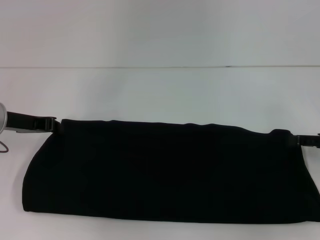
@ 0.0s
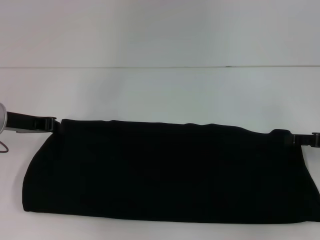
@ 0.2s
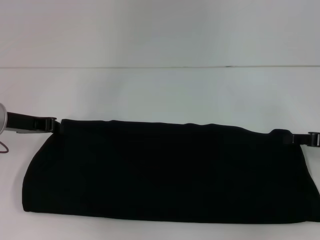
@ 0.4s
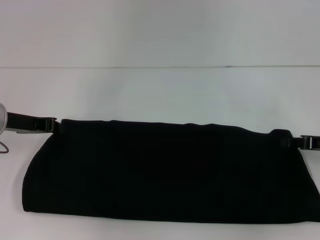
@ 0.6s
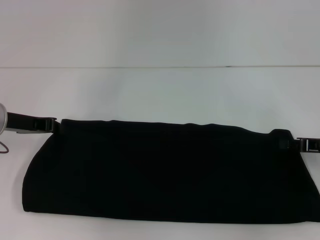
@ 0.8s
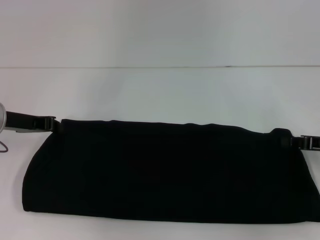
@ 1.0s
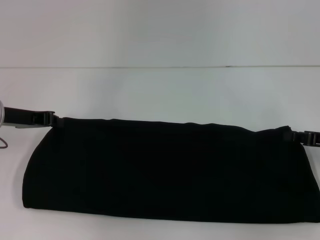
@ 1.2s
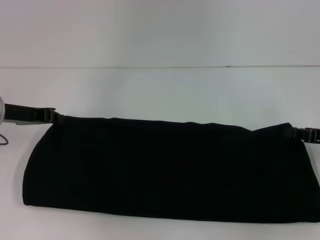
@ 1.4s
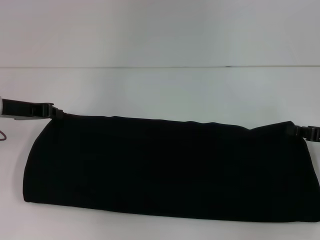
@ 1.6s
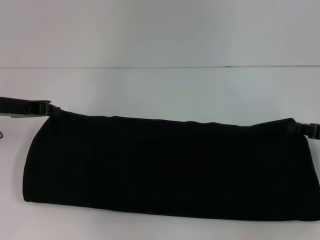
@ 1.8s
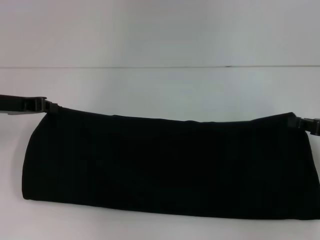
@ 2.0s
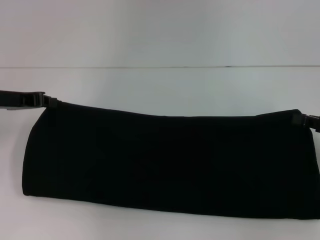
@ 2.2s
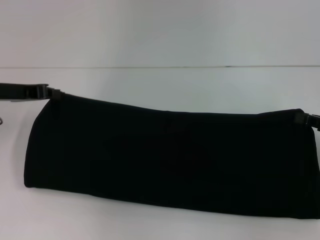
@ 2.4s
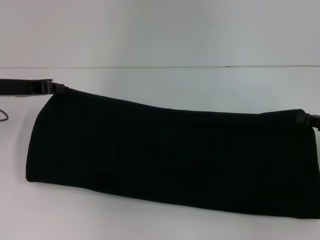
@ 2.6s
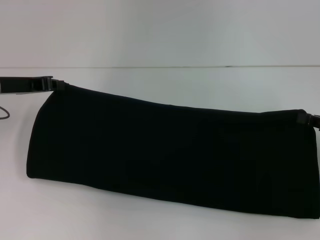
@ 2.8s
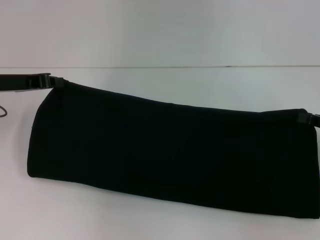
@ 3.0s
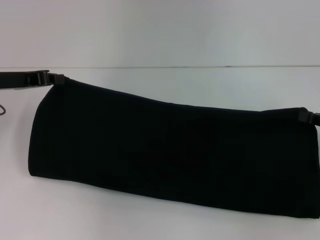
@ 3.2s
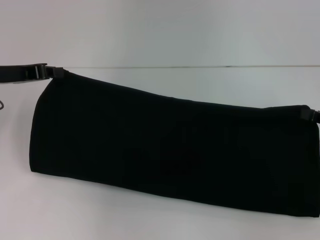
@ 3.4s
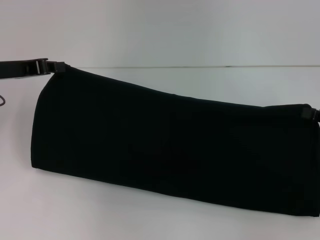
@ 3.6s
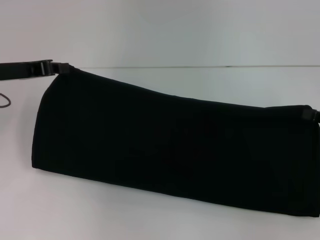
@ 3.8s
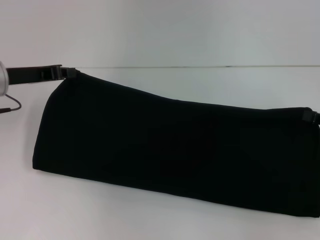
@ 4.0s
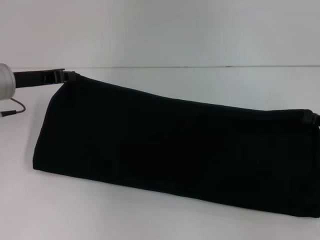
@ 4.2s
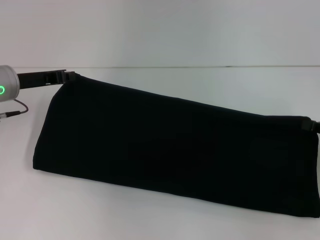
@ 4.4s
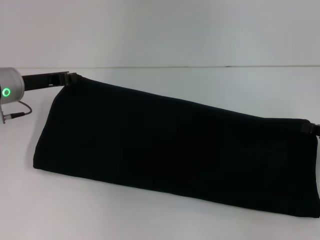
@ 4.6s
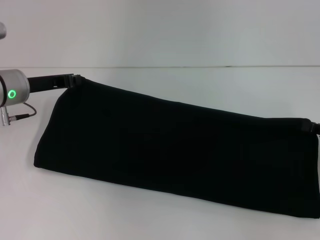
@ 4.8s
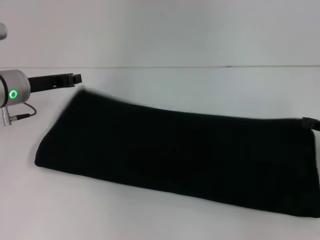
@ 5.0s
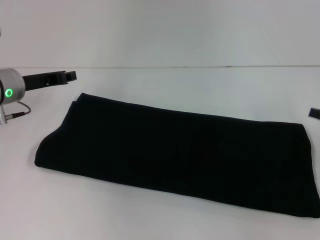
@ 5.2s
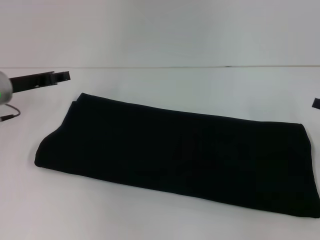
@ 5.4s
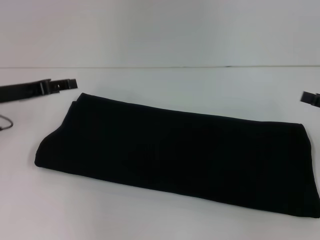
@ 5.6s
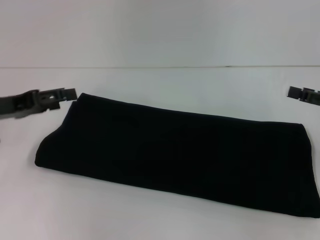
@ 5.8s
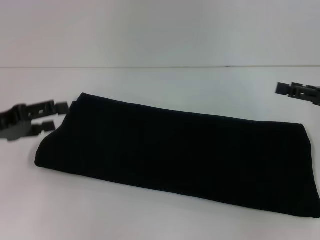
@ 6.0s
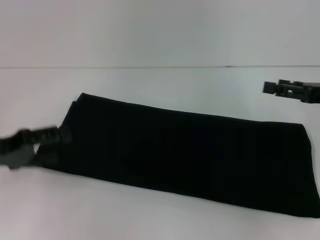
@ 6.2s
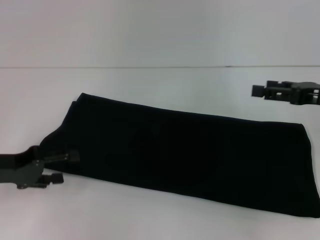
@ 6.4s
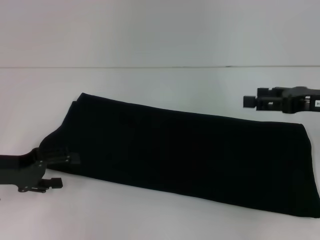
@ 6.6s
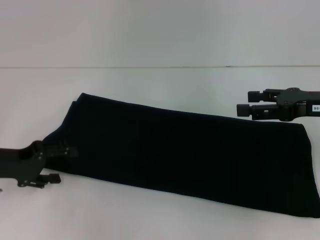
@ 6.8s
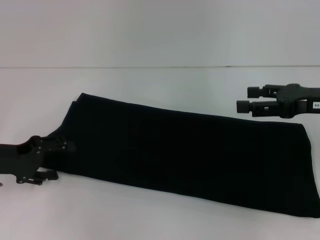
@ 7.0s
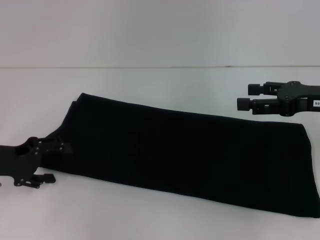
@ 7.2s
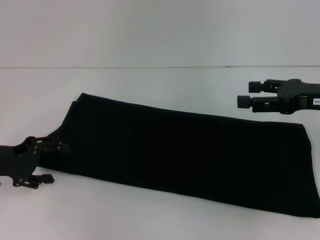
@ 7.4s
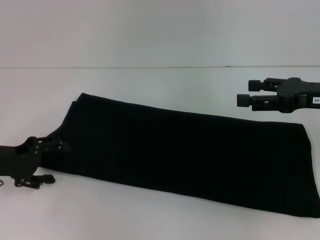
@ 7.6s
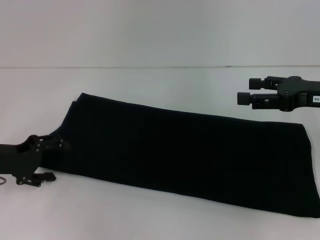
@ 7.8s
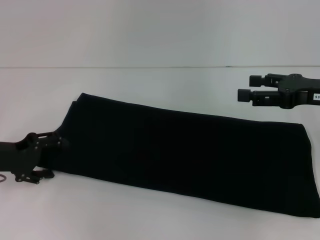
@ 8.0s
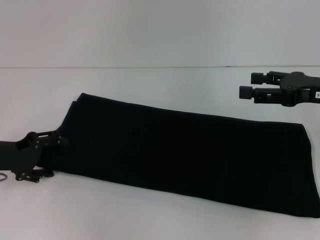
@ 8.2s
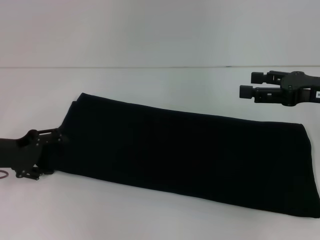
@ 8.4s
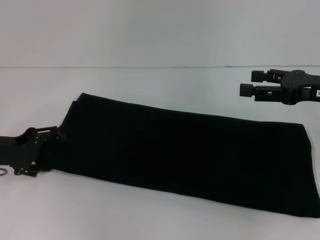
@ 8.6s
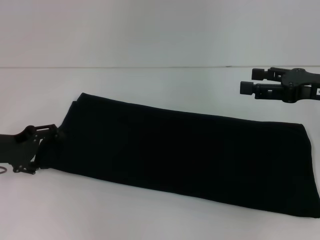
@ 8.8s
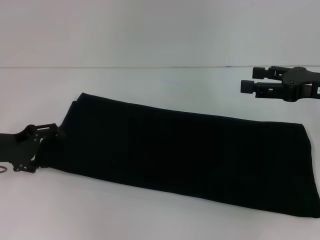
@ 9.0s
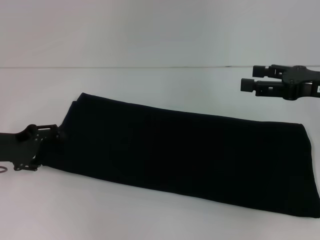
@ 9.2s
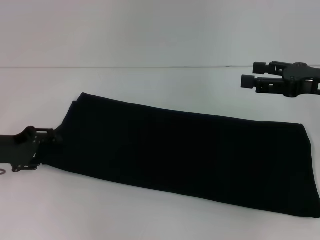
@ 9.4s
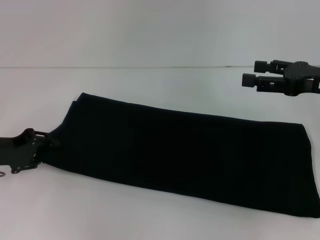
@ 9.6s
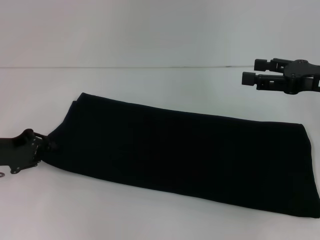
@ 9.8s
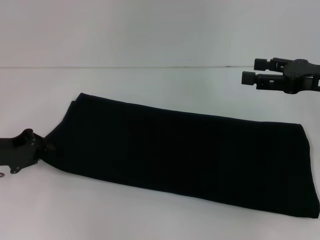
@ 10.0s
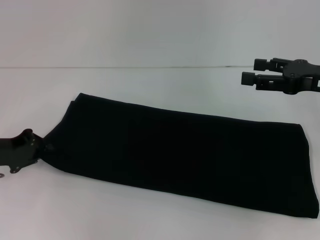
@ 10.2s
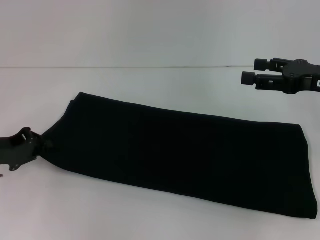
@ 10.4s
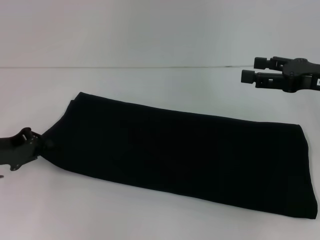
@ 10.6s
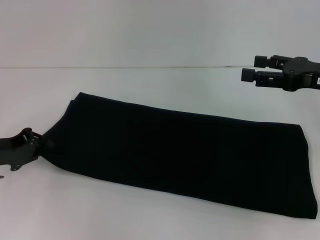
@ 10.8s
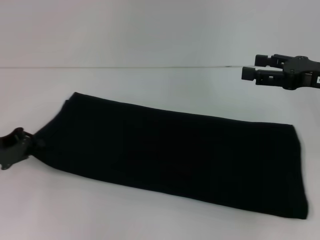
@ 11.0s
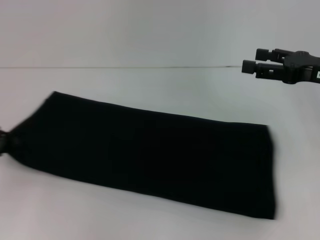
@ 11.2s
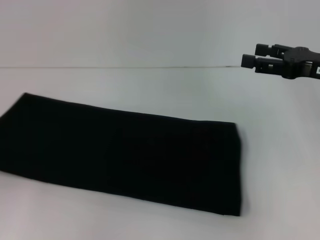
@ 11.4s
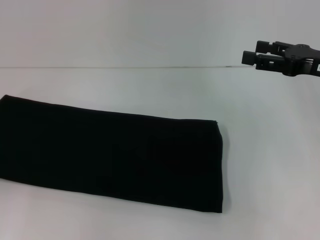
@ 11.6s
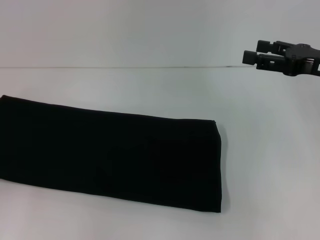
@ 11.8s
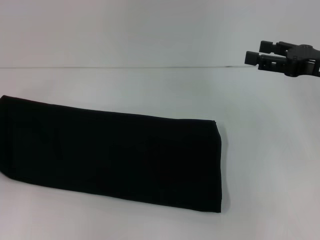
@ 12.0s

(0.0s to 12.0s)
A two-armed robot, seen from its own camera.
Step, 0.0s - 5.0s: Fold the clothes with your right hand.
0.0s - 1.6s: The right gripper closes.
1.6s - 4.4s: The grippers move only a little.
4.4s - 6.0s: The left gripper travels backward and to the left by roughly 10 cm, and opens up. Meanwhile the right gripper changes place by approximately 5 cm, and opens.
6.0s - 7.6s: The right gripper ends up some 5 cm from where it was.
7.6s - 9.0s: The grippers stay close to where they were, moving slightly.
9.0s - 10.4s: The left gripper closes its fingers.
10.4s - 12.0s: The left gripper goes approximately 10 cm to the left and upward.

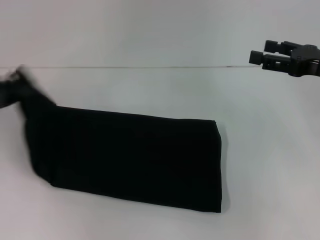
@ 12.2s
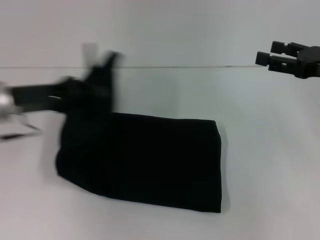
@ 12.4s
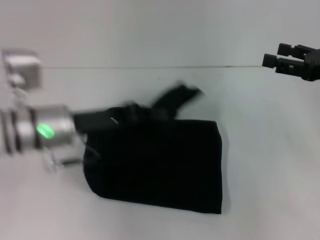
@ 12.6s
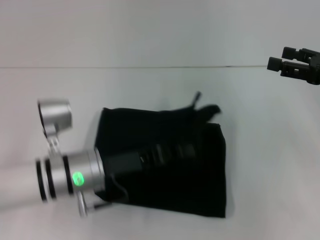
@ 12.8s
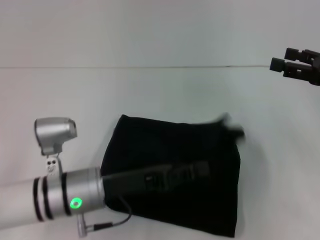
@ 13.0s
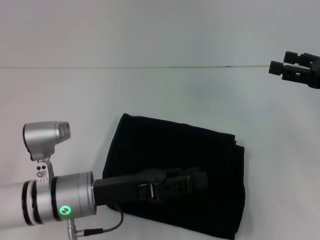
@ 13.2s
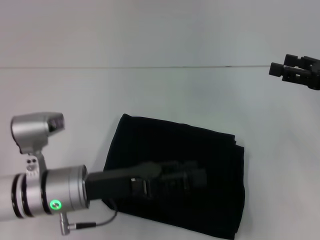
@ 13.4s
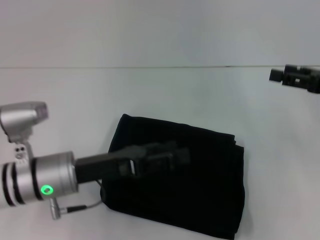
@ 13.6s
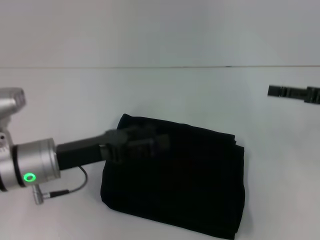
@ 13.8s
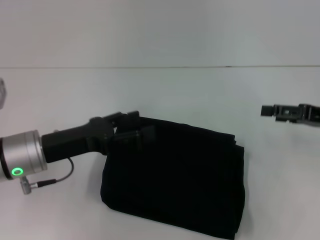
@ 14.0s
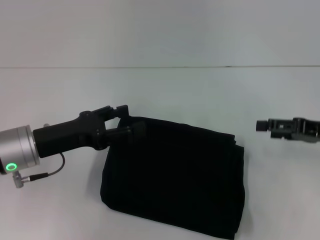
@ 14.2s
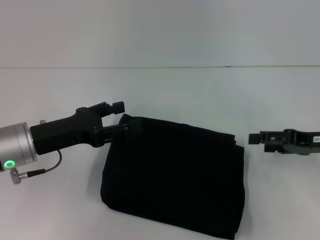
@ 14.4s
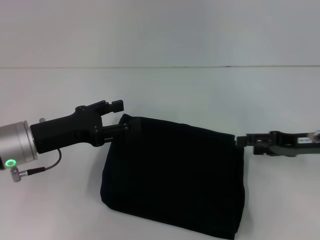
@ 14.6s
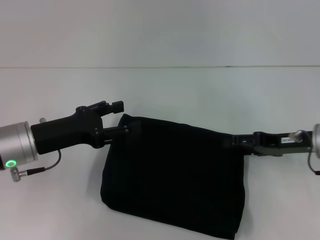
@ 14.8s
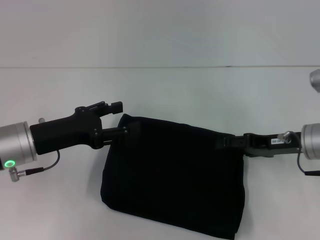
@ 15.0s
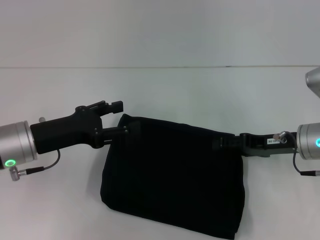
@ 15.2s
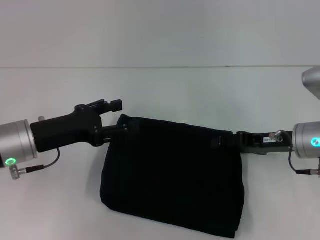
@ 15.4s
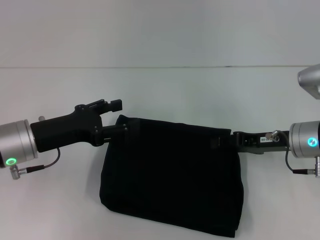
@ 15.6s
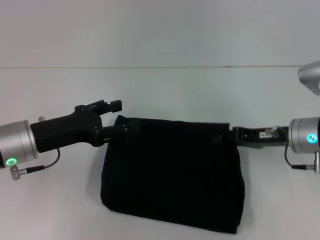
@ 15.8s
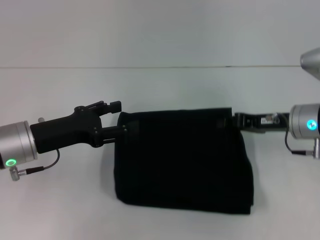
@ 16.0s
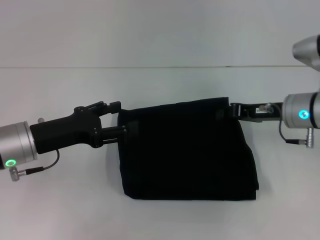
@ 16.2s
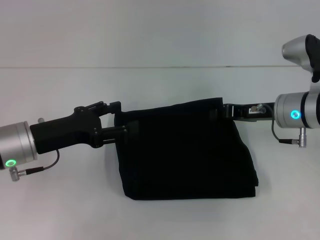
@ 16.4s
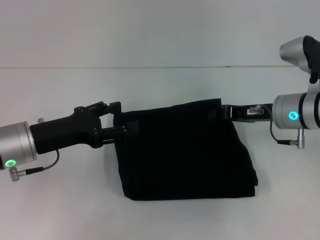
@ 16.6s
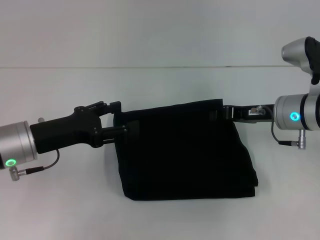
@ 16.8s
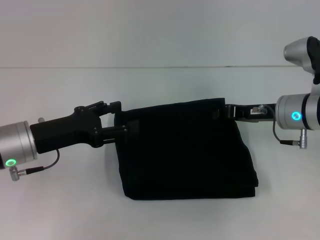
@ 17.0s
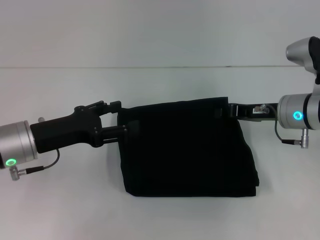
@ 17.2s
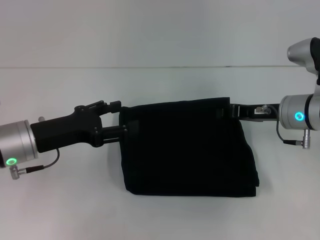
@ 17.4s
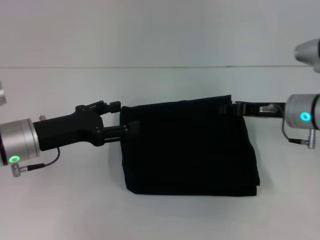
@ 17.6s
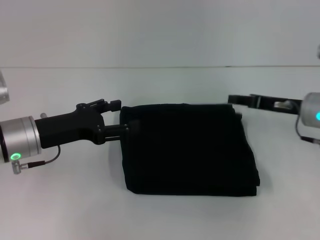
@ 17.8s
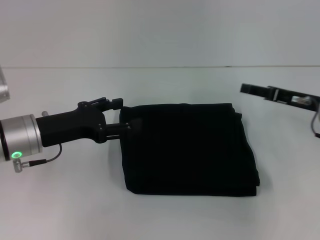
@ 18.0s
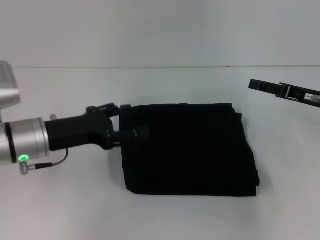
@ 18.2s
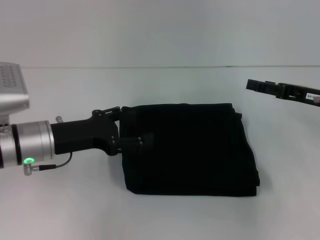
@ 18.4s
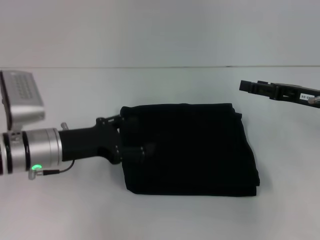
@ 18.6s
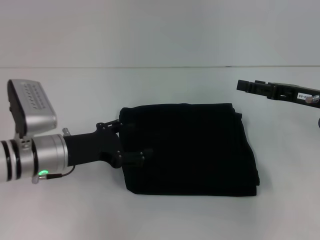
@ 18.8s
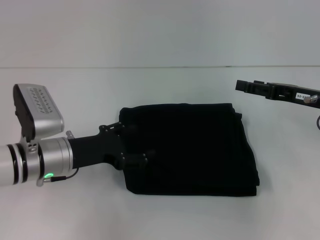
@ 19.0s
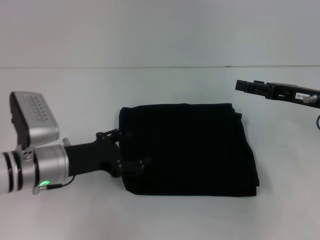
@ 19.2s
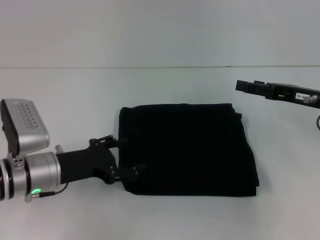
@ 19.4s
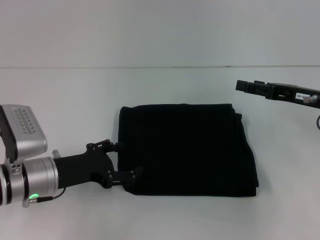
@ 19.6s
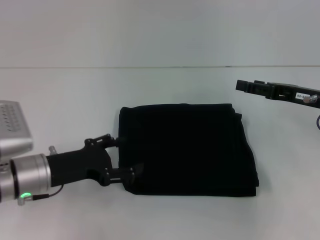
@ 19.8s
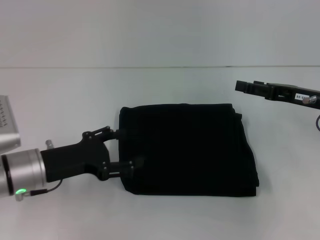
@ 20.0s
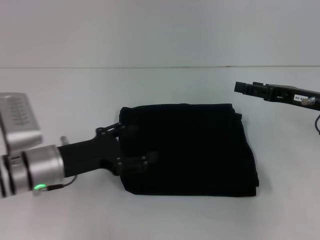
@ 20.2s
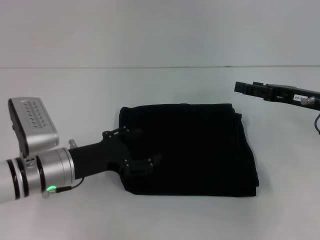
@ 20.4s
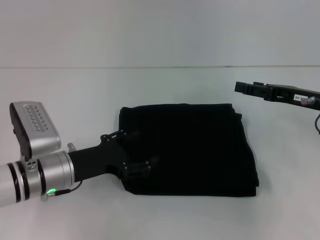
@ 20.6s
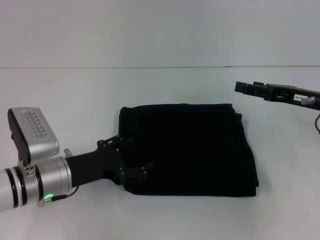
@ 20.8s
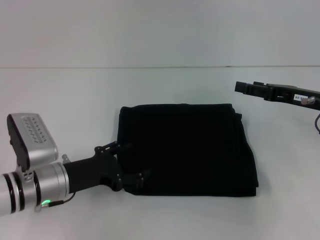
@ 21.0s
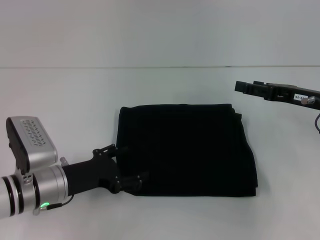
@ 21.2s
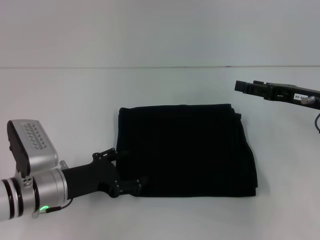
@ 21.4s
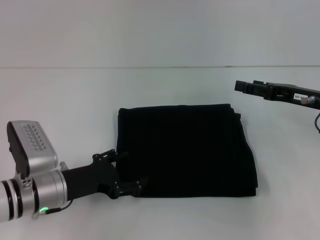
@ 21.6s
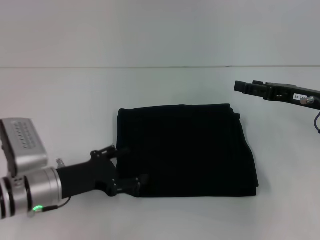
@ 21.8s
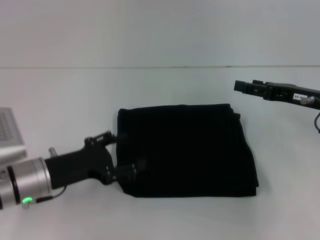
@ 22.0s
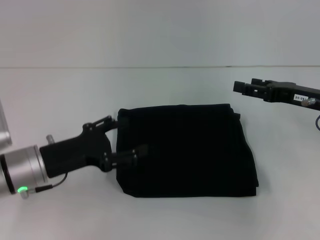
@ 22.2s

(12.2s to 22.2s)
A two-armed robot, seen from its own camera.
12.2s - 13.6s: The left gripper moves to the right and downward, about 20 cm, and opens up.
13.6s - 15.0s: The right gripper heads to the left and downward, covering roughly 10 cm. Meanwhile the left gripper is displaced to the left by approximately 5 cm.
15.0s - 16.4s: The right gripper shifts by some 5 cm, and closes.
16.4s - 18.0s: The right gripper moves to the right, approximately 5 cm.
18.0s - 19.4s: The right gripper opens; the left gripper ends up roughly 5 cm from where it was.
19.4s - 22.2s: The grippers move only a little.
